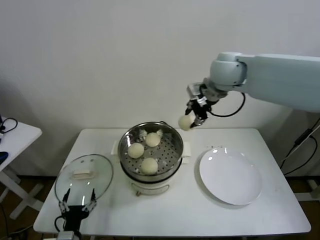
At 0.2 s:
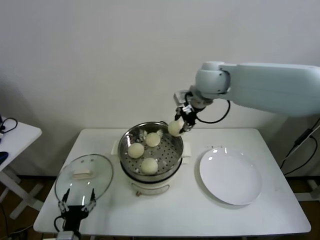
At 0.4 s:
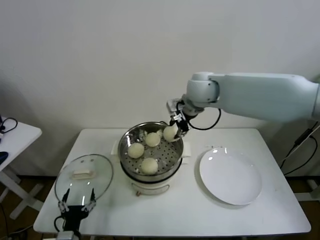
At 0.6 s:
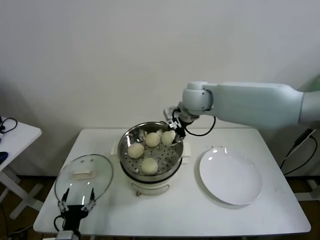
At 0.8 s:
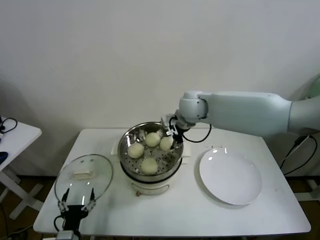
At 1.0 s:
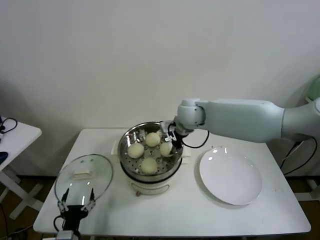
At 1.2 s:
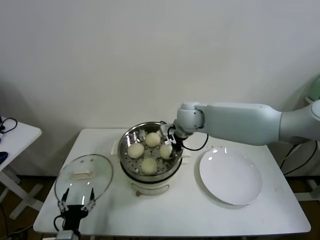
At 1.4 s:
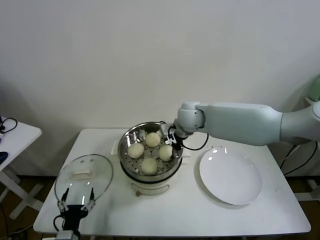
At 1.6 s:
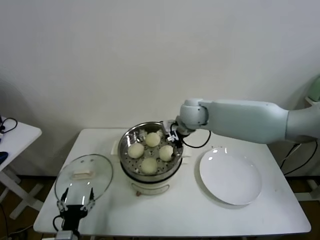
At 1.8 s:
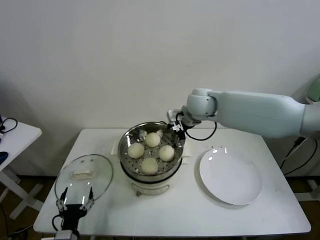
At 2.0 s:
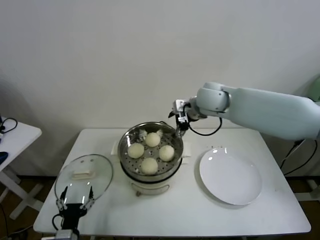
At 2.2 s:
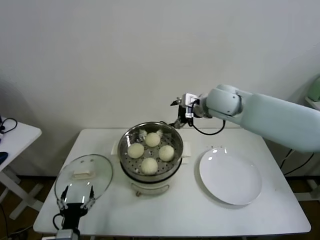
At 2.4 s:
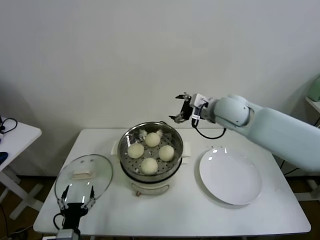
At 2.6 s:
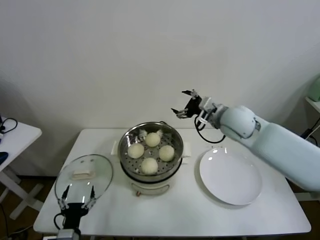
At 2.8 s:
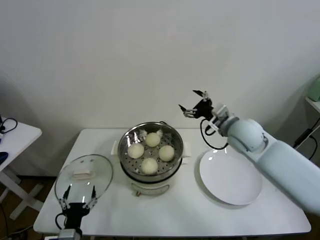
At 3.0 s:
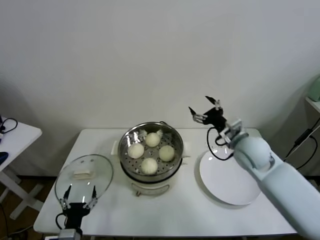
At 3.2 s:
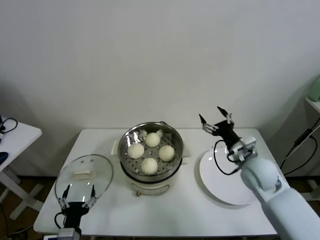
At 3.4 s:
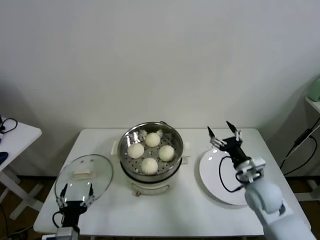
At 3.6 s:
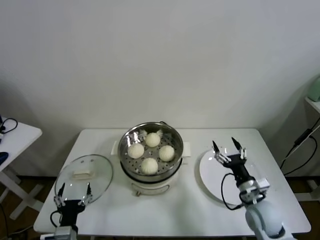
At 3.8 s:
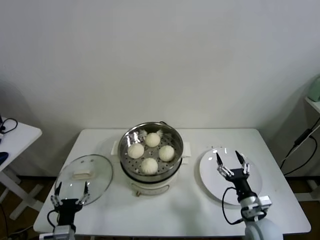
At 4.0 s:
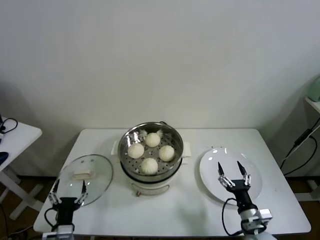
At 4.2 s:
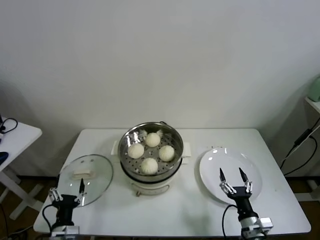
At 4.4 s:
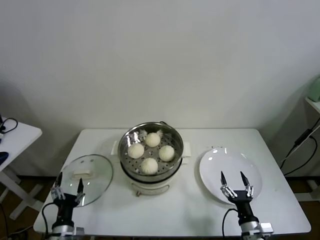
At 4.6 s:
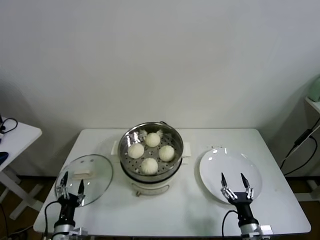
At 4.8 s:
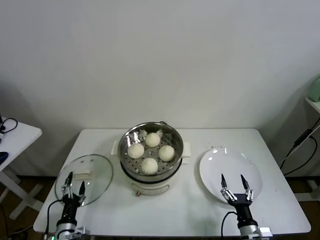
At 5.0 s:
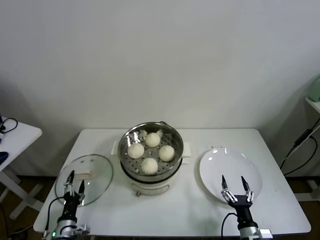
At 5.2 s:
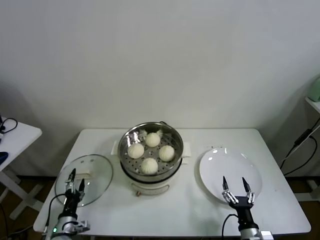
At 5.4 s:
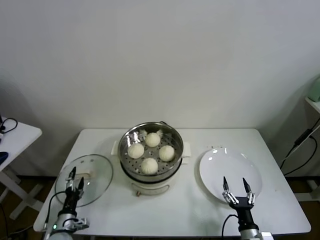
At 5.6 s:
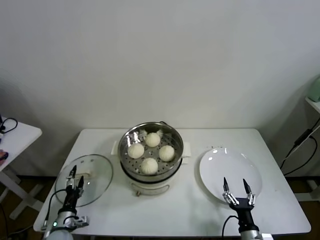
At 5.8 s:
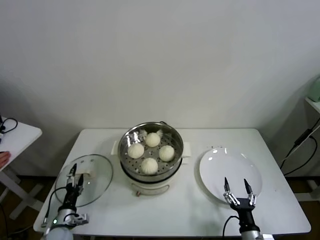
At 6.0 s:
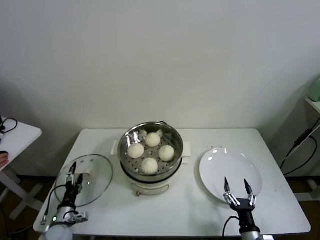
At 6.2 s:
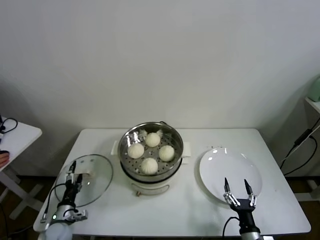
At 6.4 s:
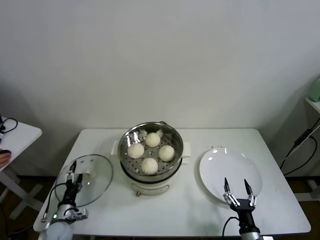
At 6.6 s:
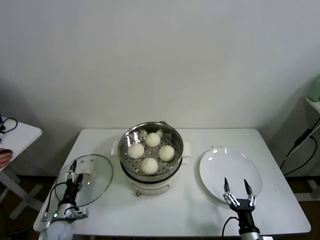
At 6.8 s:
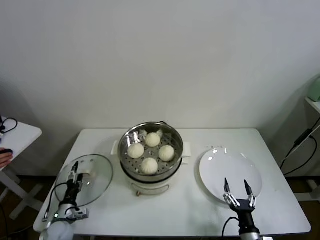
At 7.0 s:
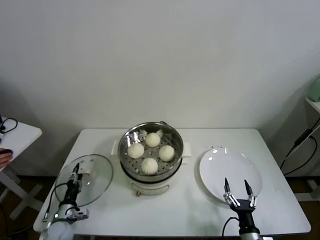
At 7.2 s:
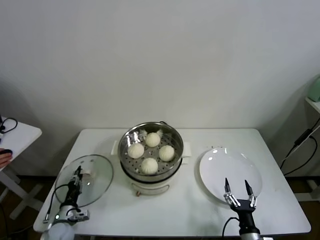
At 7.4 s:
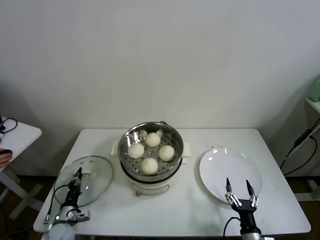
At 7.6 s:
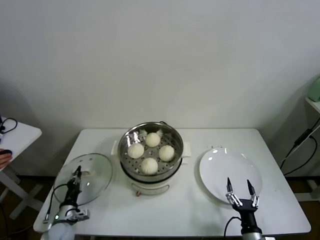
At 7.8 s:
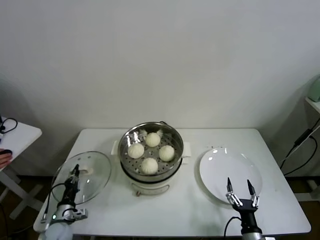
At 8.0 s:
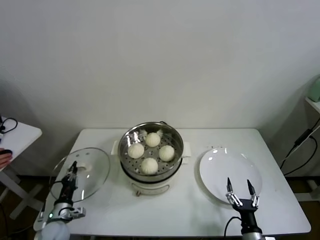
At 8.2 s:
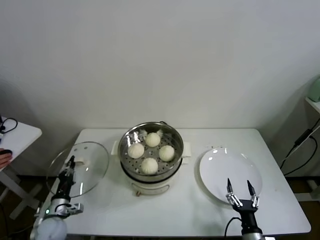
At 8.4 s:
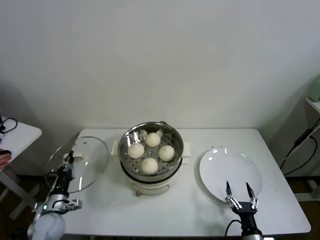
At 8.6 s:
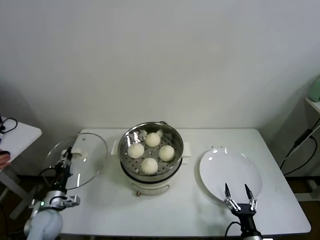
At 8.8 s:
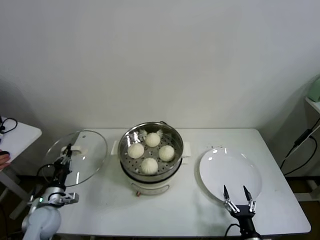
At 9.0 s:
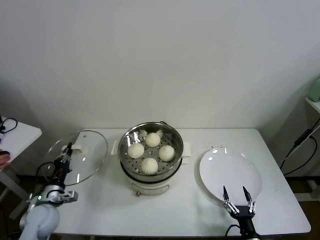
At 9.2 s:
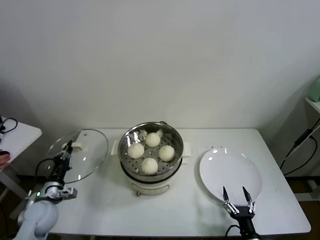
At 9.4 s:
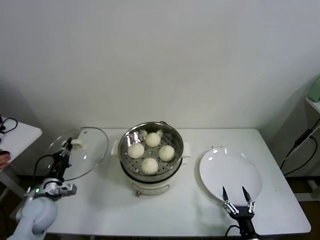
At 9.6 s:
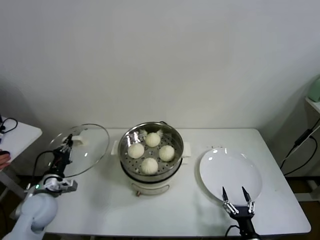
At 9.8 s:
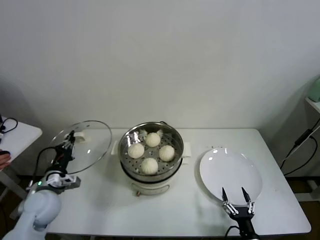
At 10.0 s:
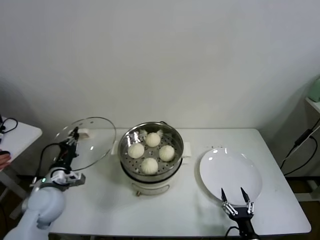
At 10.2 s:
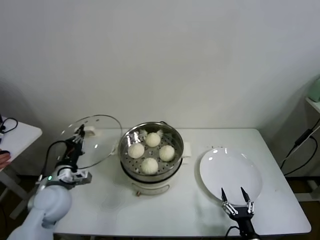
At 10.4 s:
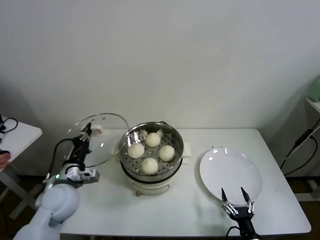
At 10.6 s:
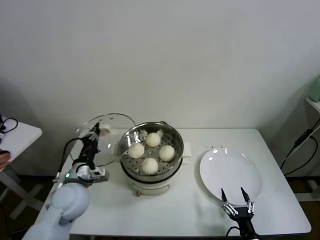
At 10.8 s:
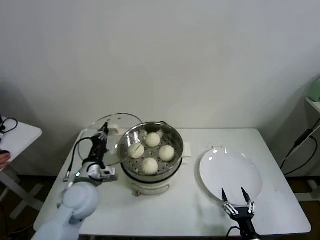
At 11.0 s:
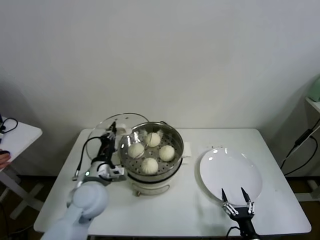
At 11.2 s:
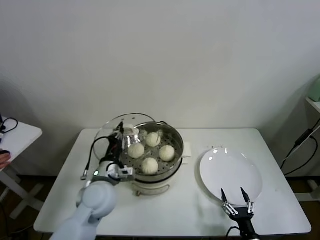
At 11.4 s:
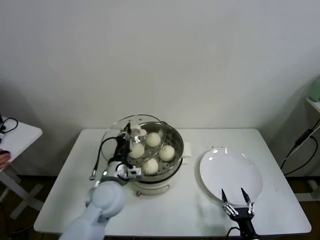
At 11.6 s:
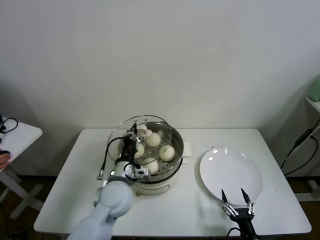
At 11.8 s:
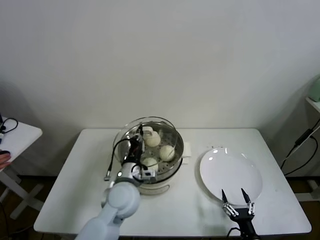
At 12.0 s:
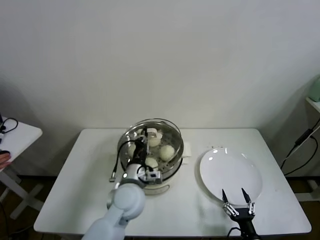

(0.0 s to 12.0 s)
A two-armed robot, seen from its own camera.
Task of the whole recording: take steamed baozi put them in steamer.
Step, 1.6 s - 7.2 s: Grasp the pot lid with left gripper.
0.0 s - 1.6 s: The right gripper goes about 15 cm downward and to the left, and opens its fingers.
1.6 s - 3.0 s: The right gripper shifts some 20 cm to the right, backward and downward.
3.0 s - 4.4 s: The left gripper changes place by some 5 cm; the right gripper is displaced downward and backward by about 35 cm.
4.4 s - 6.0 s: The left gripper travels forward, to the left and downward by roughly 10 cm.
6.0 s - 7.6 s: The left gripper closes its fingers.
7.6 s - 9.0 s: The left gripper goes some 10 cm upward.
9.0 s - 10.4 s: The left gripper heads upward and to the right, covering approximately 15 cm.
10.4 s - 12.0 s: The left gripper heads to the right, covering approximately 20 cm.

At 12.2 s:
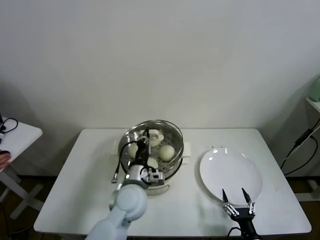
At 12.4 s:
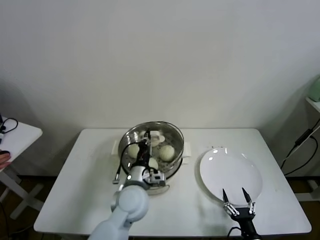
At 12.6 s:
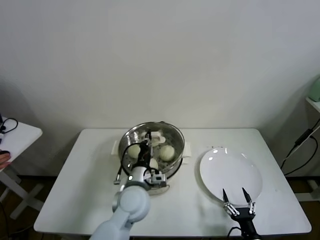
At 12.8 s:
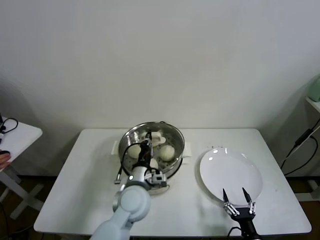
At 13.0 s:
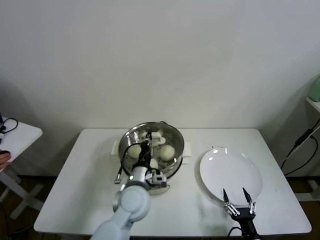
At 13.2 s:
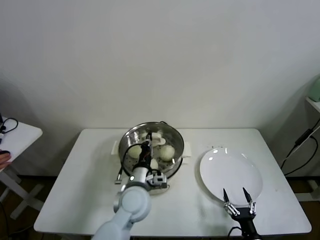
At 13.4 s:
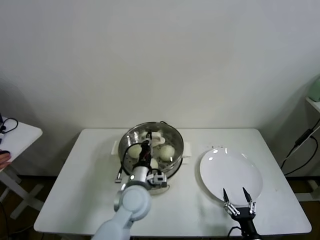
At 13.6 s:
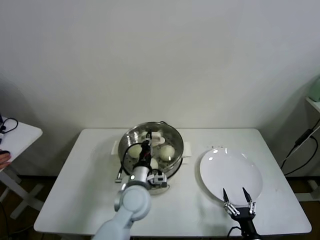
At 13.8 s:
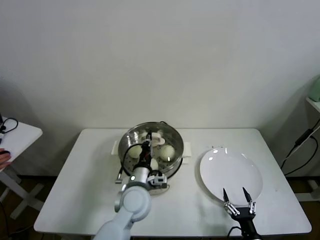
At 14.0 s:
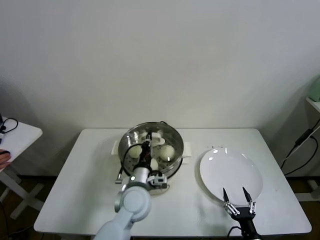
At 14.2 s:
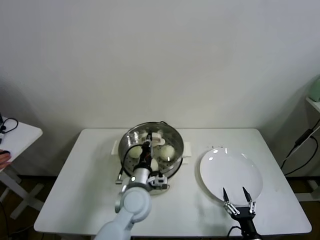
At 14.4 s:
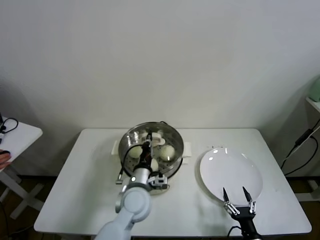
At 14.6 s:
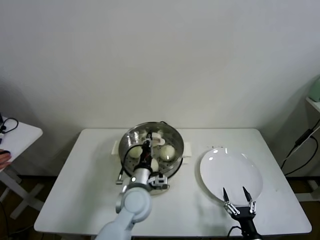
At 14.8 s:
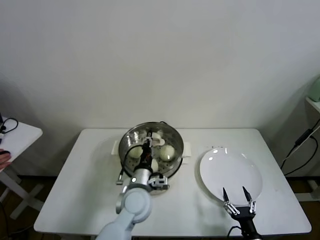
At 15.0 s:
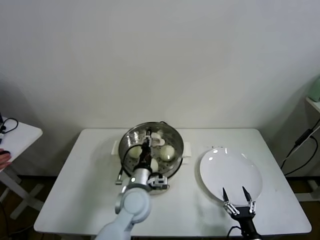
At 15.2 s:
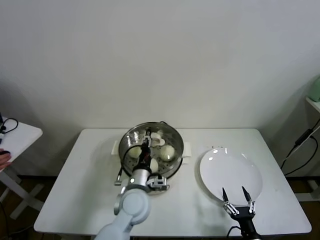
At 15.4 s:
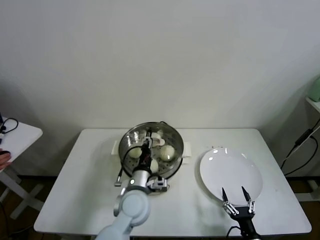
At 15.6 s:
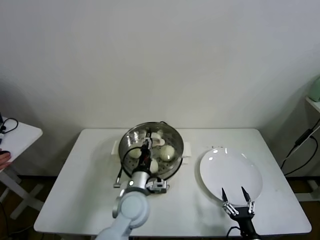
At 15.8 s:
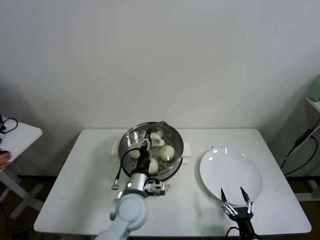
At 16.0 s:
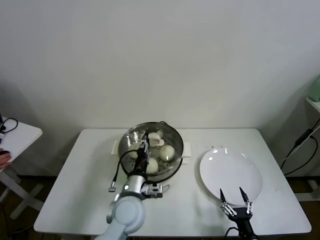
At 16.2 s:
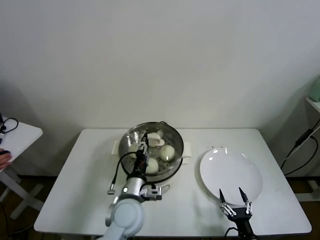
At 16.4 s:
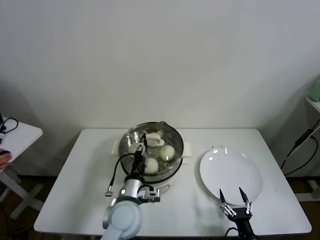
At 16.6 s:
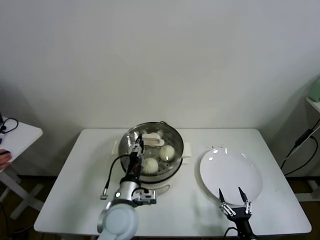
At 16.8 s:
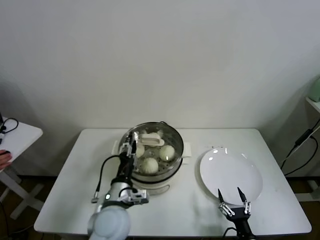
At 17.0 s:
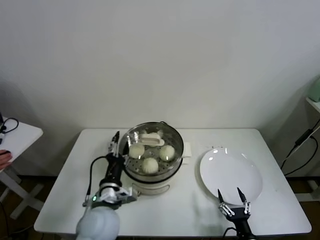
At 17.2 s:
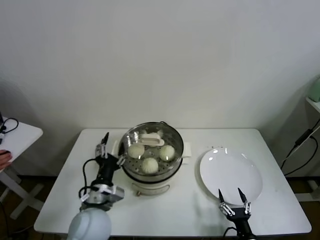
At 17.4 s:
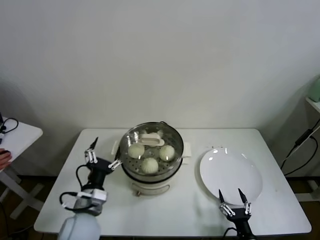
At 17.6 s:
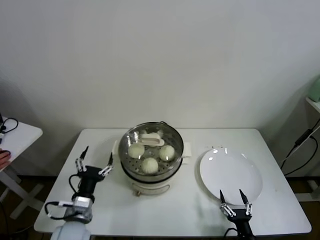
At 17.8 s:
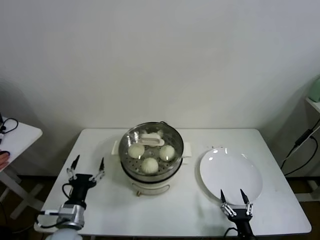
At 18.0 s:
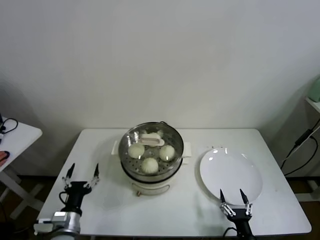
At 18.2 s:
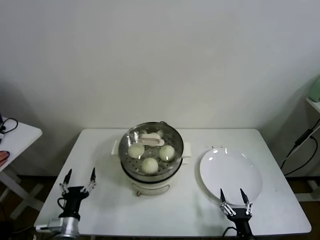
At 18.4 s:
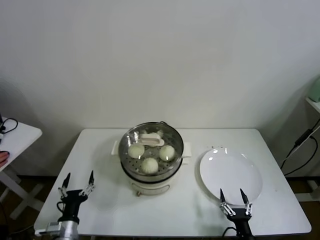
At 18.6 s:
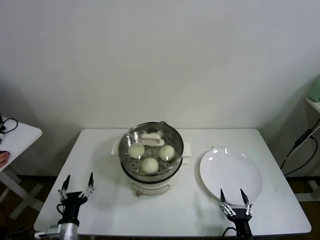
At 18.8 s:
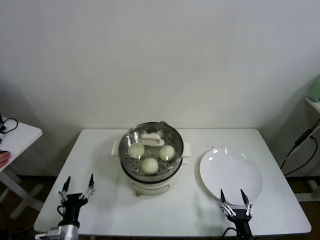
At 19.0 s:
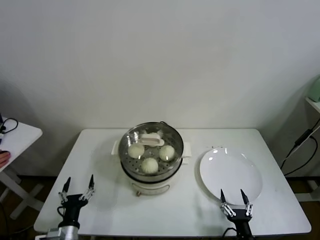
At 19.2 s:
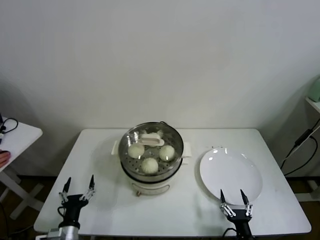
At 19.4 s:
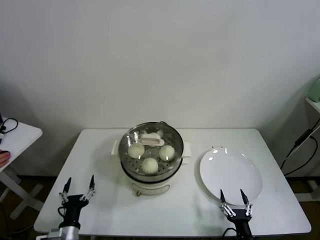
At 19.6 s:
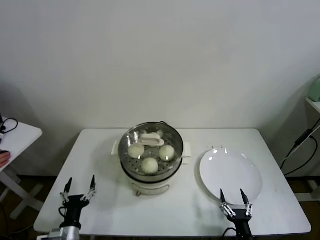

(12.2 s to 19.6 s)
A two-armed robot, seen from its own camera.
Task of the whole recording: take steamed baozi put them in steamer.
Step, 12.2 s - 16.0 s: Place the pot lid on the steamer with left gripper.
12.2 s - 13.6 s: The grippers move only a little.
13.6 s - 15.2 s: The left gripper opens.
15.2 s - 16.6 s: The left gripper shifts by approximately 5 cm.
16.6 s - 18.2 s: The left gripper shifts approximately 20 cm to the left and downward, and opens.
18.2 s - 19.6 s: The grippers stay close to where they were, moving slightly.
